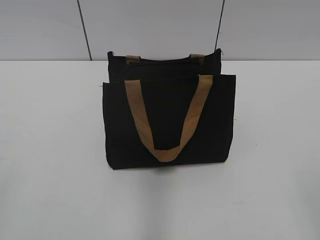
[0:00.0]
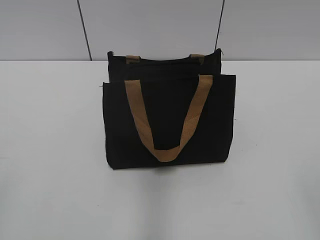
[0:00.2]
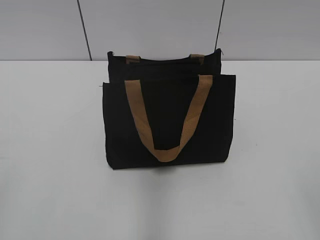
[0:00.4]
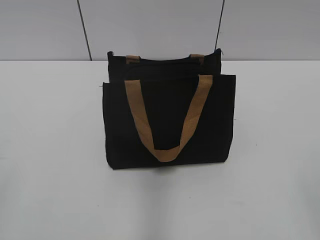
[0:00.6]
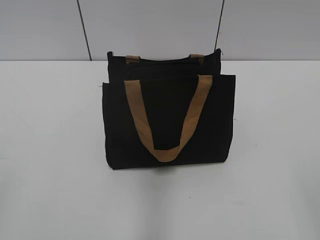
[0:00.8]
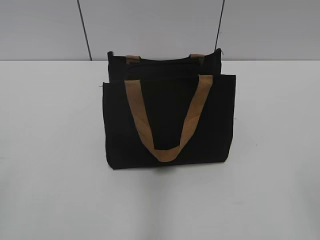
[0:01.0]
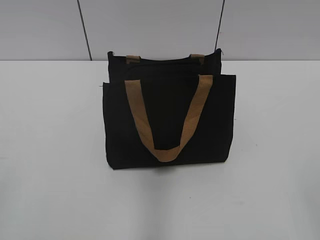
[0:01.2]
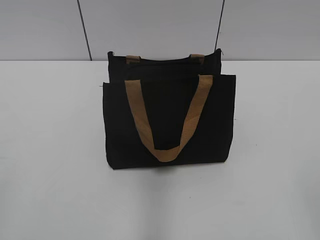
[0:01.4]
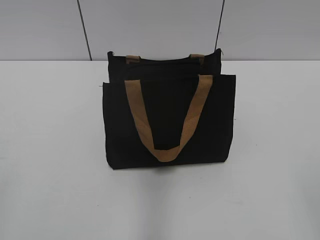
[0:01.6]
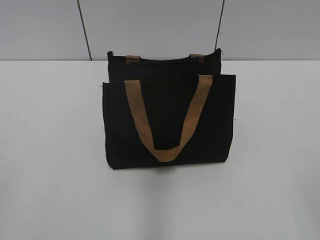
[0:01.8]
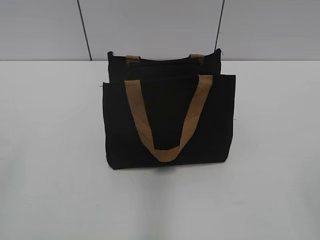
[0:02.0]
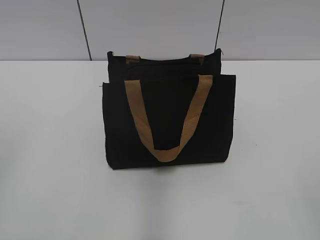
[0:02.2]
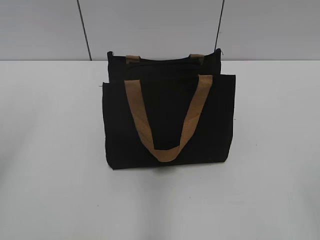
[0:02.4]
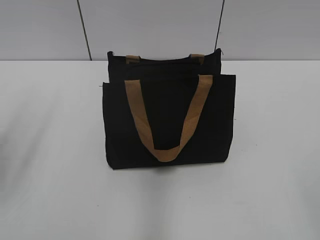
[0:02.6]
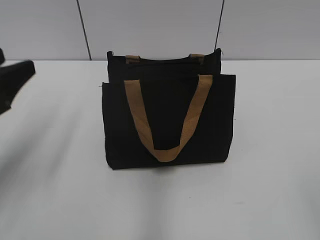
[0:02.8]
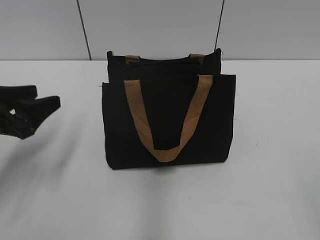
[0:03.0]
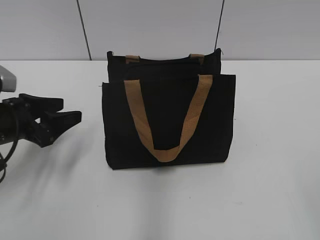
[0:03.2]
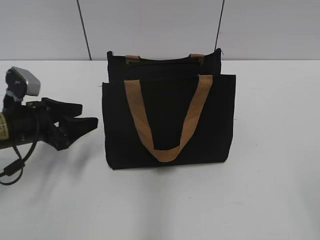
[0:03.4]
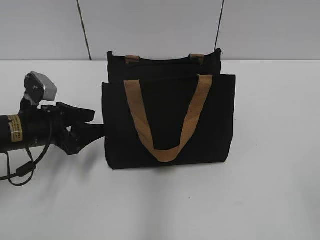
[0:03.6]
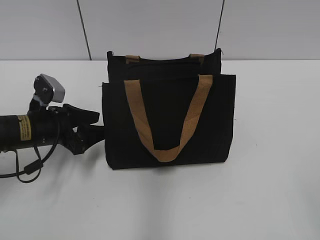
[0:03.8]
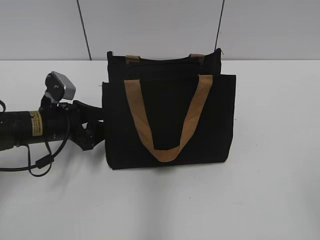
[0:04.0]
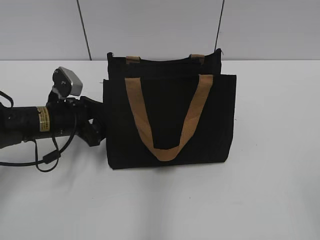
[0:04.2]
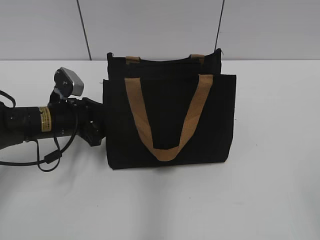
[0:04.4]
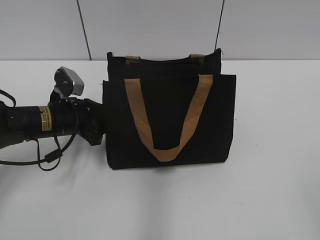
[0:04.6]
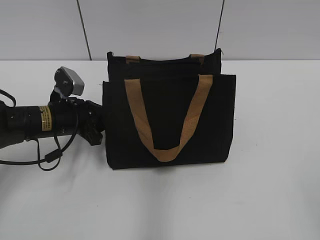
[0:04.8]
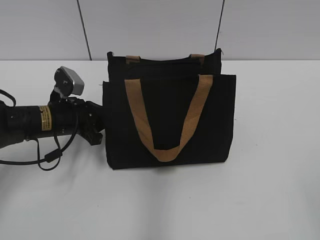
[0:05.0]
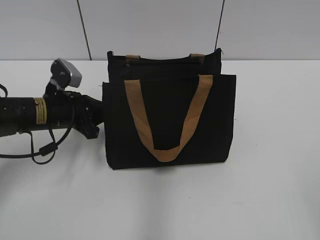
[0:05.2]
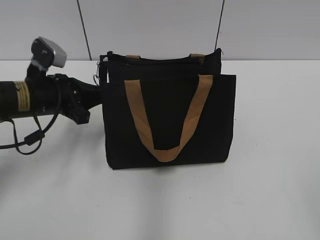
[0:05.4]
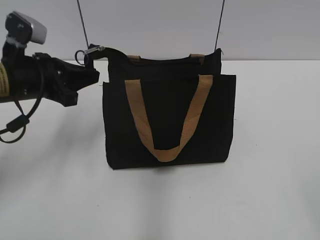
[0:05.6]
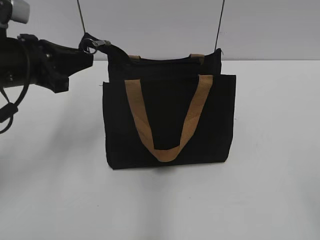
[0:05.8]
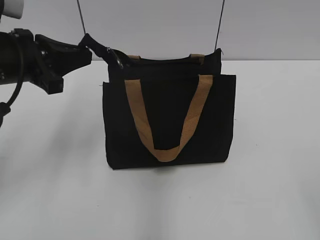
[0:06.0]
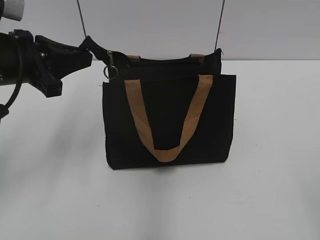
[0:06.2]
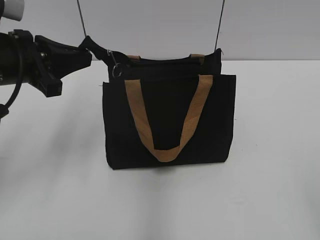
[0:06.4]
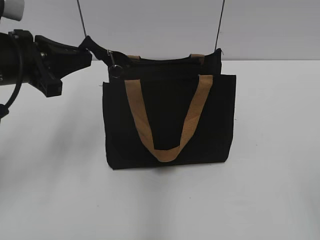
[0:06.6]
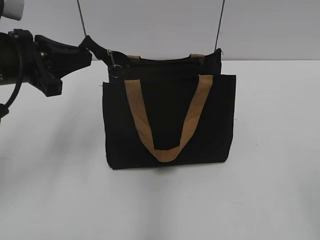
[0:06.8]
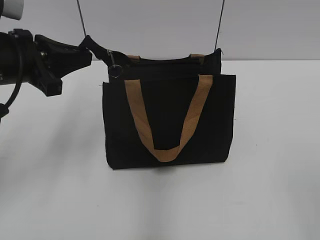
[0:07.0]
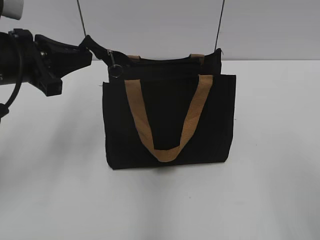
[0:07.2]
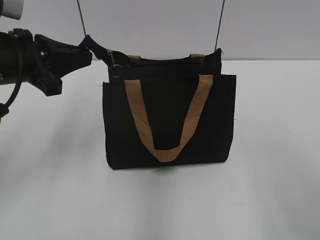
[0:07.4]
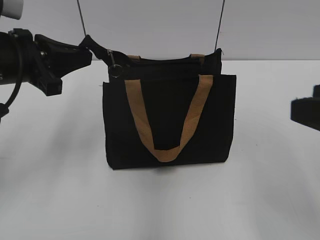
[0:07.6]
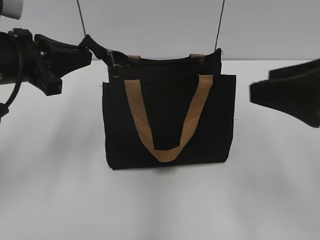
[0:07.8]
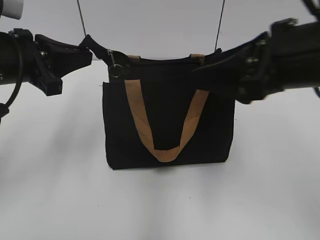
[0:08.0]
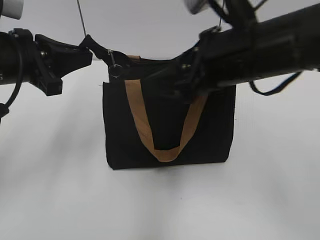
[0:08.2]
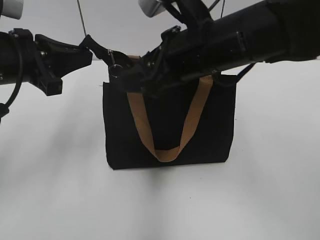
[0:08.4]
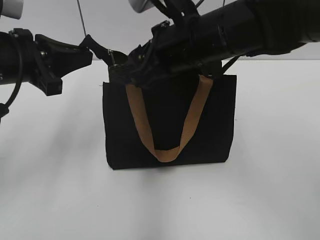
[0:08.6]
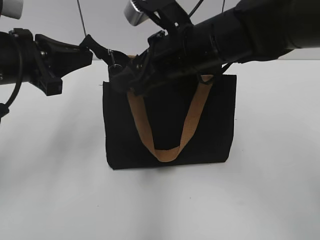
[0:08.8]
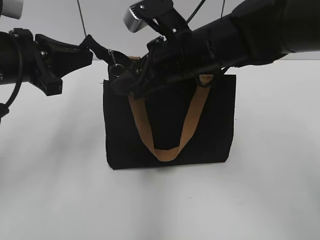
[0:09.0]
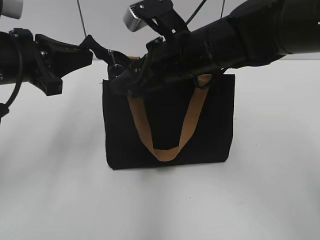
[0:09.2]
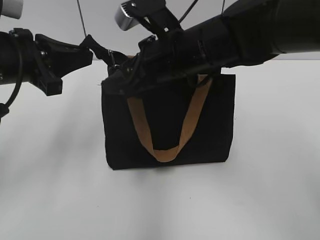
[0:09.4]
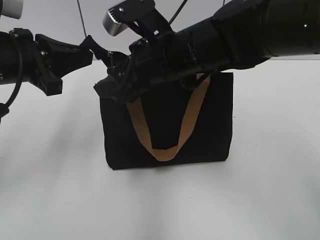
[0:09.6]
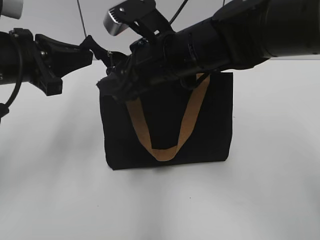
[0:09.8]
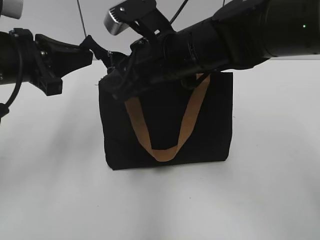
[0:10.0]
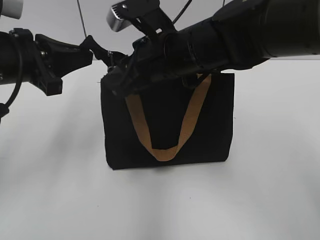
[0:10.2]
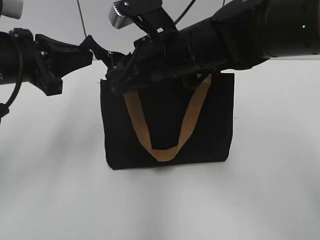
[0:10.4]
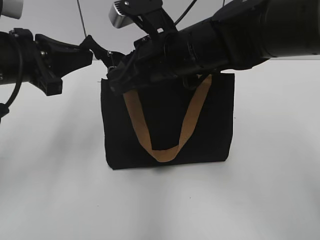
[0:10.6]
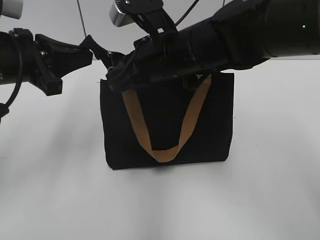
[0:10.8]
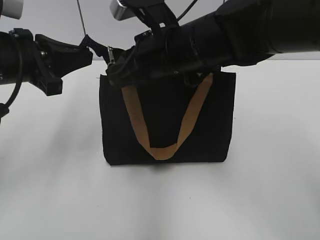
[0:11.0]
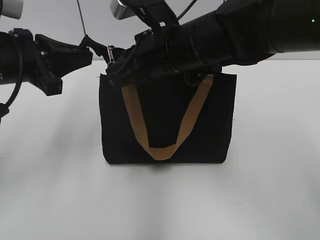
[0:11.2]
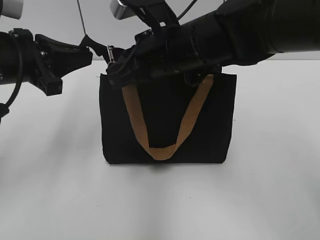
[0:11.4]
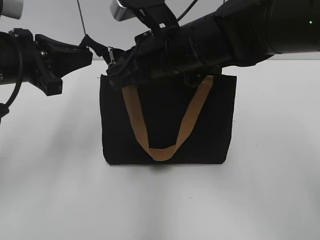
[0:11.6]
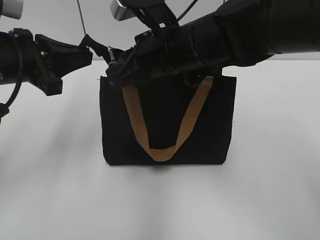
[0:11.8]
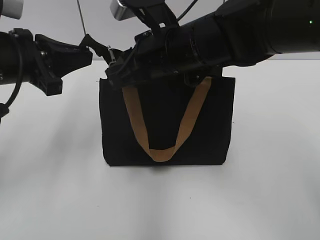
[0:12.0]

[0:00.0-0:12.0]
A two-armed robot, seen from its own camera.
0:01.6 to 0:03.0: The left gripper heads forward and downward, covering roughly 25 cm.
0:03.0 to 0:04.4: The left gripper is displaced forward, downward and to the right by some 15 cm.
0:04.4 to 0:06.0: The left gripper is displaced upward by approximately 15 cm, and closes its fingers.
0:06.0 to 0:07.6: The right gripper goes roughly 10 cm forward.
0:07.6 to 0:09.0: The right gripper travels forward and to the left by roughly 30 cm.
0:09.0 to 0:10.4: The right gripper closes up.
0:10.4 to 0:12.0: Neither gripper changes place.

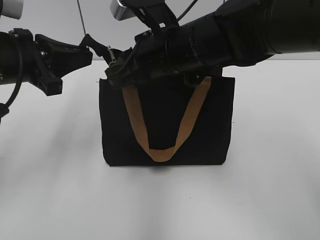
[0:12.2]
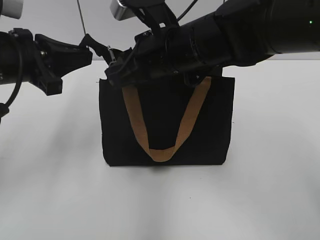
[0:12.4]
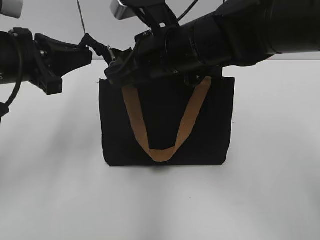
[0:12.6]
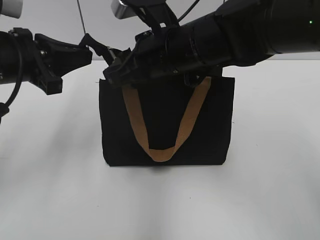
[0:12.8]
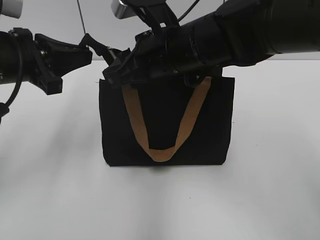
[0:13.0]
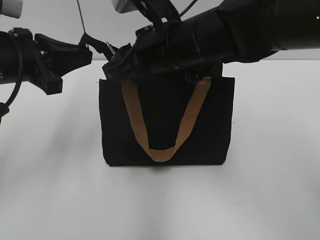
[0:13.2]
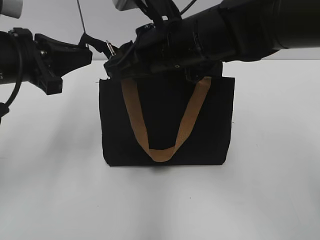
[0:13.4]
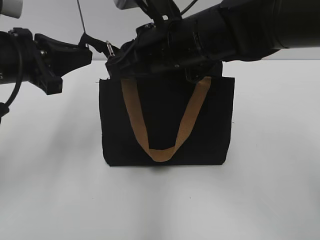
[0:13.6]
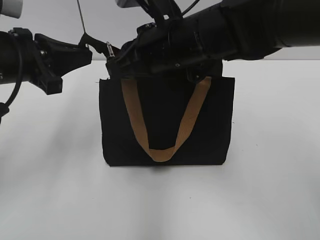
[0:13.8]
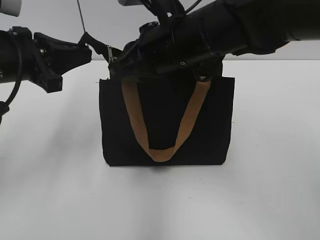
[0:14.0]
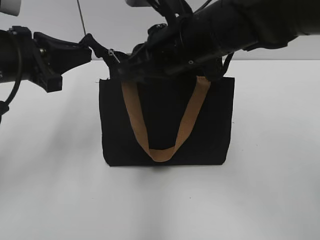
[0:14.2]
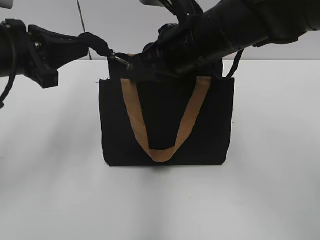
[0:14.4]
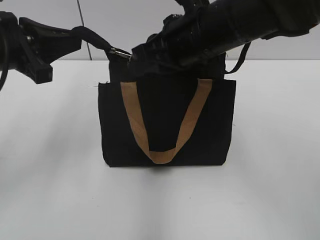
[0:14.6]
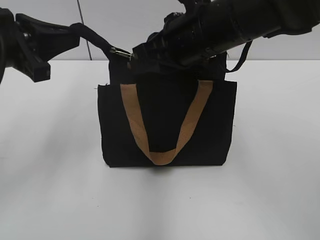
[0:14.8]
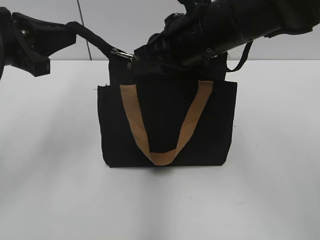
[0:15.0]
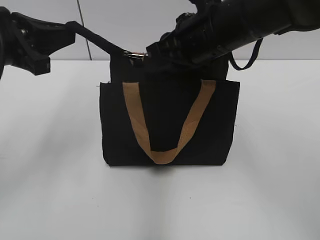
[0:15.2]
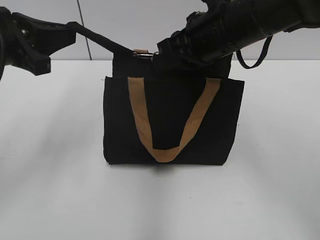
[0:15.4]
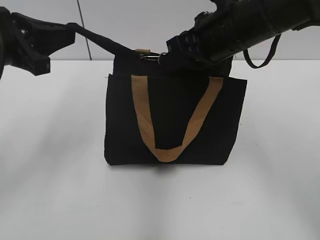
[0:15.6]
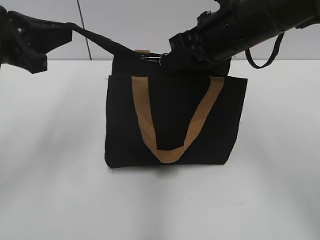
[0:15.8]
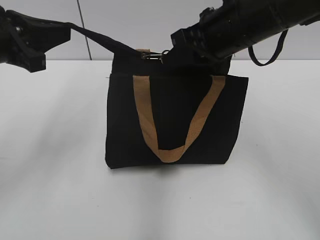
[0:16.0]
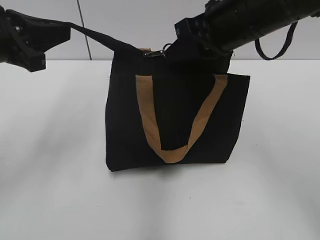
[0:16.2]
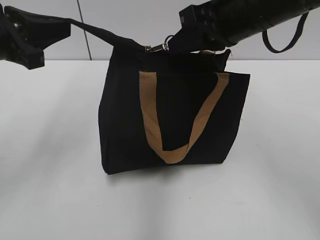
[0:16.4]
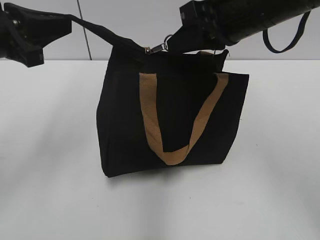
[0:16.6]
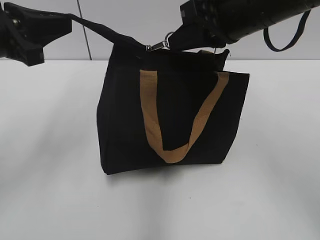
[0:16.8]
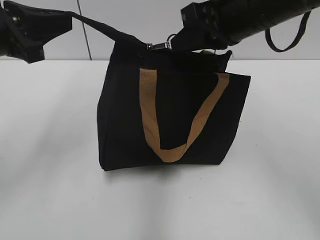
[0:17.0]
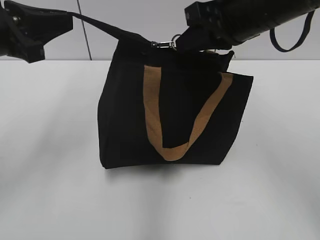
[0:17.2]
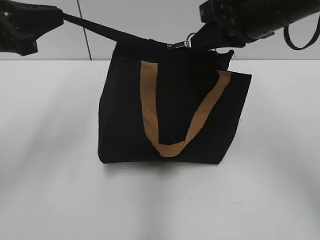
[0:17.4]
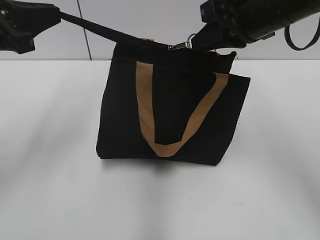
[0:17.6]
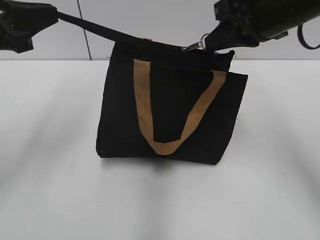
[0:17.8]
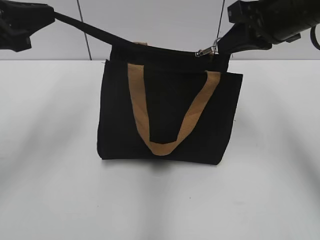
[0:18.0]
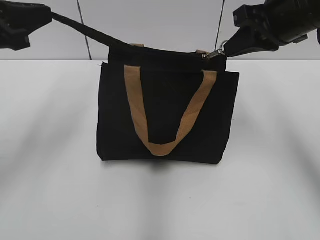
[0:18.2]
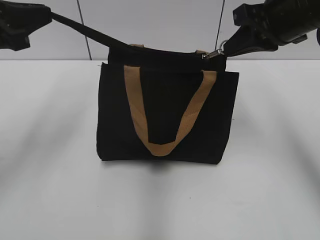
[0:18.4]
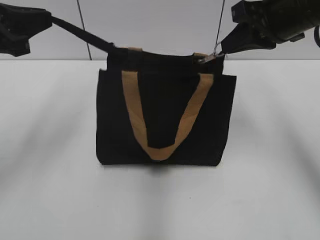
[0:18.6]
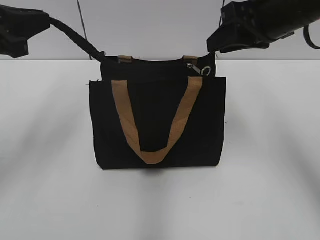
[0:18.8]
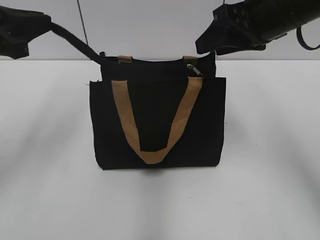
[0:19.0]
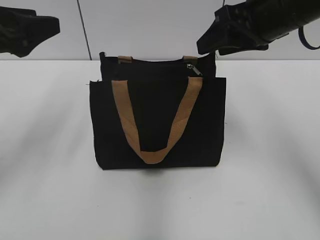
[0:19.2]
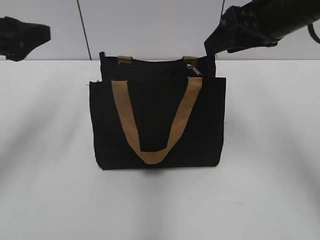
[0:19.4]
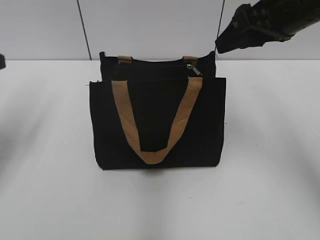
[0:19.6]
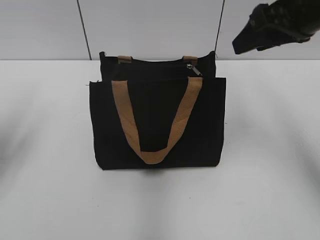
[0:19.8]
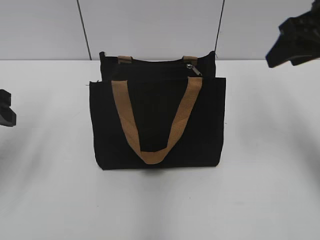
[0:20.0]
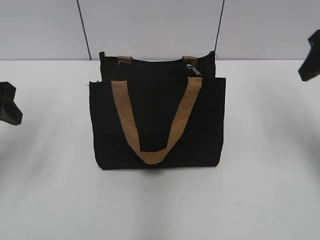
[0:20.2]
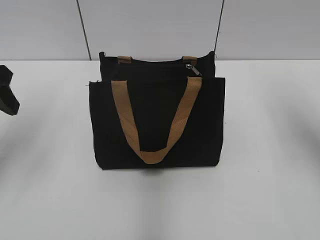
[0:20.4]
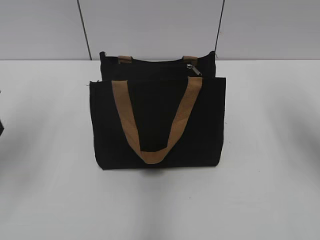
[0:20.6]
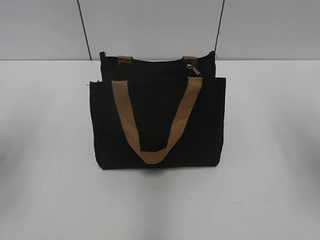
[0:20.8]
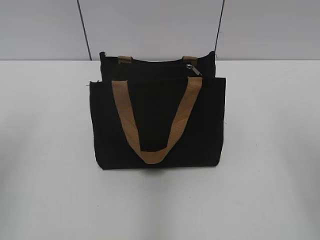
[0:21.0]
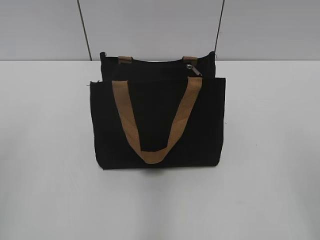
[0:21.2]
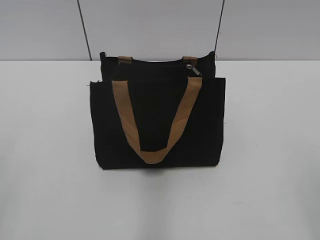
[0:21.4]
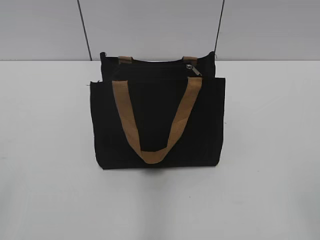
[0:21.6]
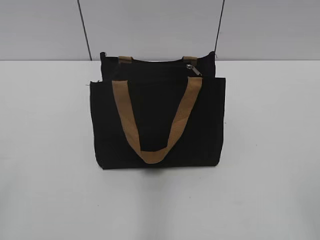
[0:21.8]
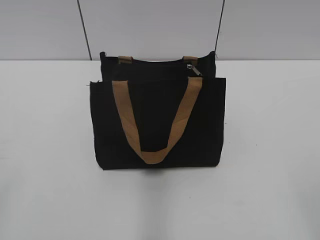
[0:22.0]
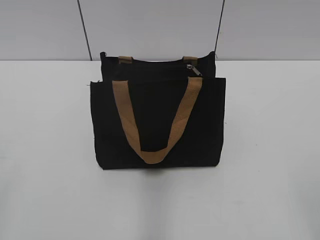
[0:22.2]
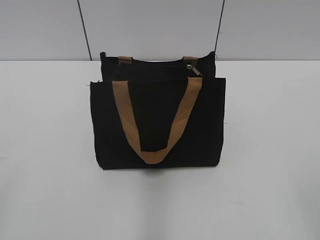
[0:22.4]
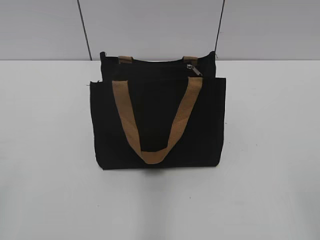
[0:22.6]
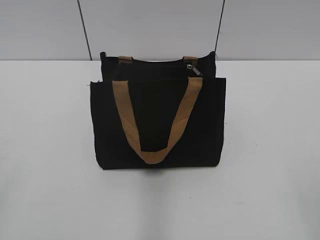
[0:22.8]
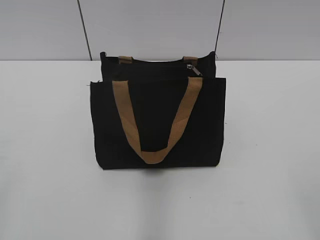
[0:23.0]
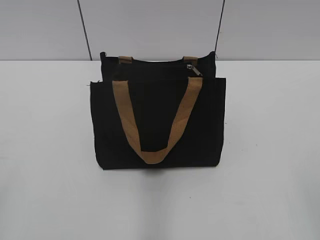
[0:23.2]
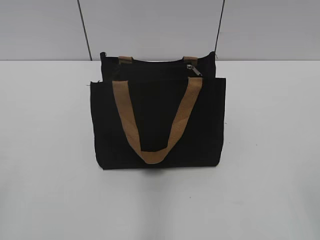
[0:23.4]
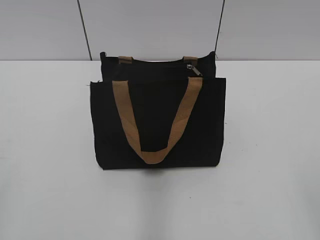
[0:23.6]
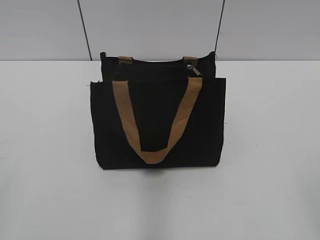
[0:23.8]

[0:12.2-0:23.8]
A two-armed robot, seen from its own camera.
Step, 0:12.2 to 0:18.6: Zip up the bag with your right hand.
0:12.2 to 0:13.6: Both grippers stay about where they are.
0:13.6 to 0:15.0: There are only small adjustments of the grippers.
0:15.0 to 0:16.6: The right gripper shifts about 5 cm to the right.
0:16.6 to 0:18.0: The right gripper travels to the right by roughly 5 cm.
0:18.0 to 0:19.4: The left gripper opens up, while the right gripper opens.
0:19.4 to 0:21.0: The left gripper travels backward by roughly 10 cm; the right gripper moves backward and to the right, approximately 20 cm.
0:21.0 to 0:22.4: The left gripper heads backward, covering roughly 15 cm.
